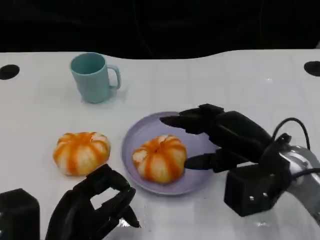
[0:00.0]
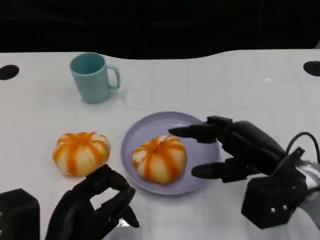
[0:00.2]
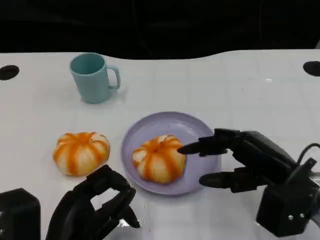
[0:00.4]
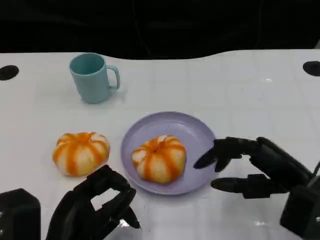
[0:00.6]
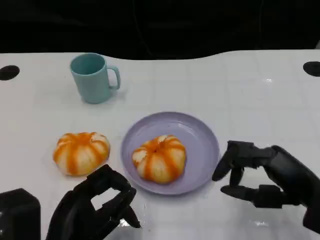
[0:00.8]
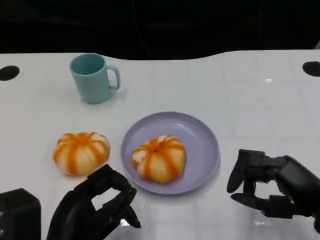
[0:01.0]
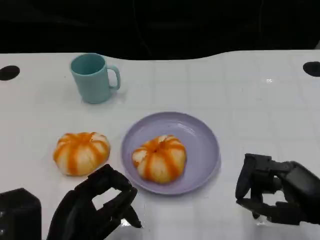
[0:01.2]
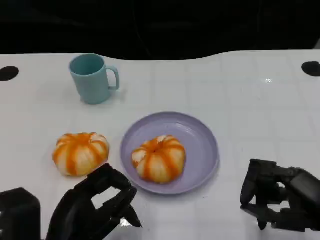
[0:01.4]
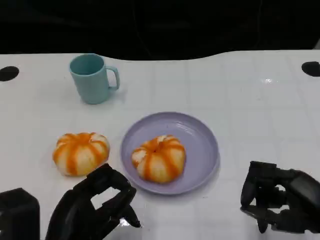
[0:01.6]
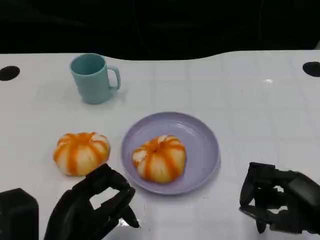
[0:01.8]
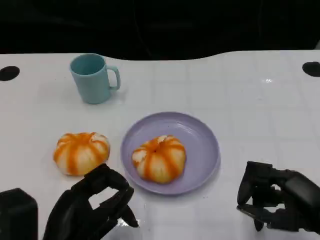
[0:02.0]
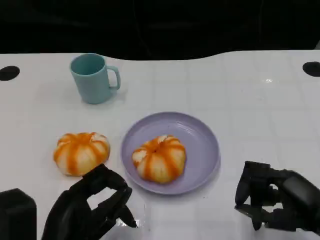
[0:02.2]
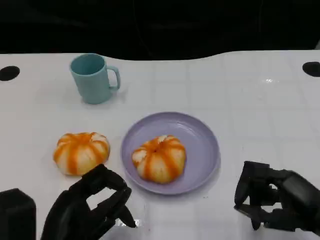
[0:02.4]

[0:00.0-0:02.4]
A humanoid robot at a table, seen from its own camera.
Task of the whole recording: Grasp the bread from the table and place it into the plate.
0:00.0 to 0:01.2: The right hand heads backward and to the right, covering approximately 10 cm.
0:01.2 to 0:02.4: The hands stay close to where they were, moving slightly.

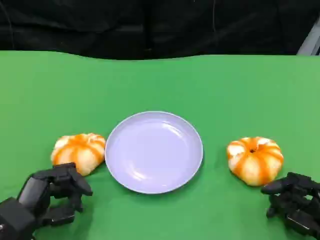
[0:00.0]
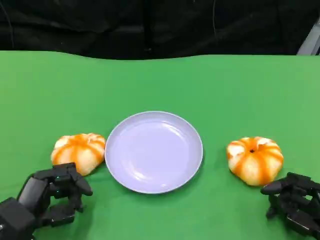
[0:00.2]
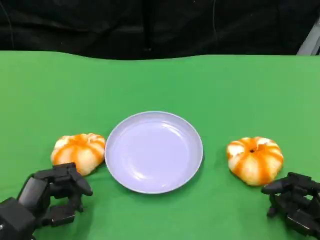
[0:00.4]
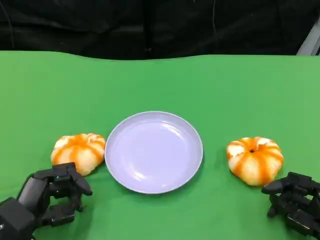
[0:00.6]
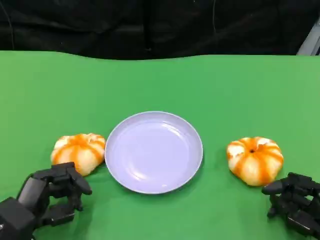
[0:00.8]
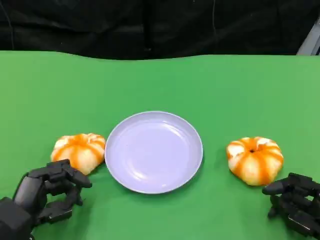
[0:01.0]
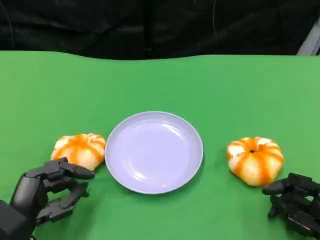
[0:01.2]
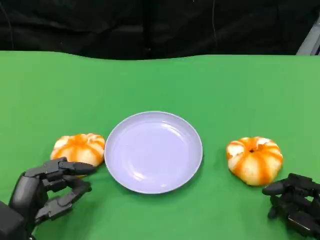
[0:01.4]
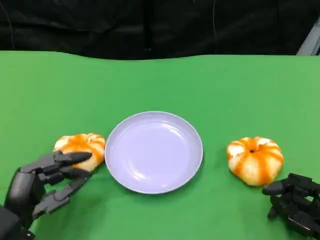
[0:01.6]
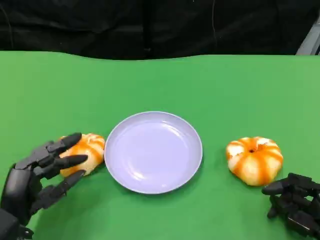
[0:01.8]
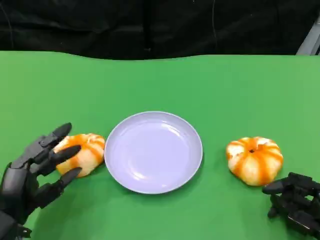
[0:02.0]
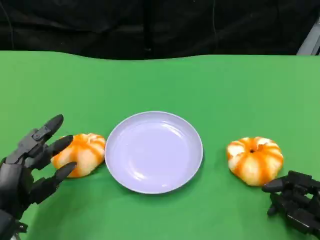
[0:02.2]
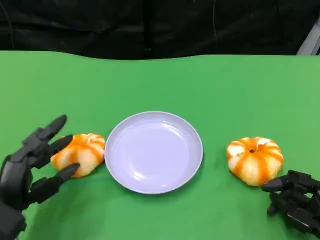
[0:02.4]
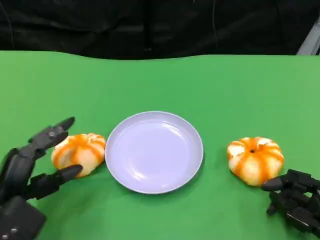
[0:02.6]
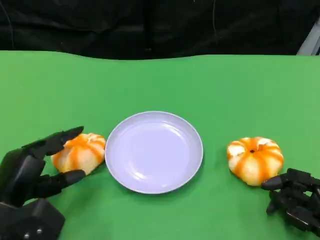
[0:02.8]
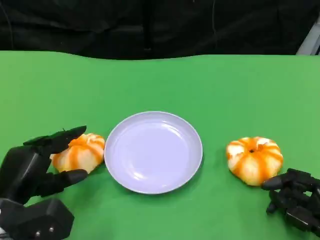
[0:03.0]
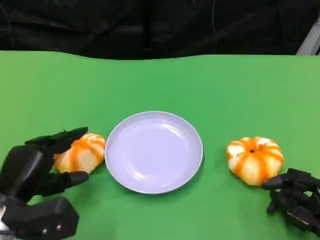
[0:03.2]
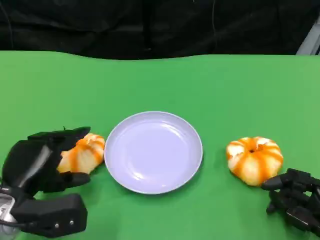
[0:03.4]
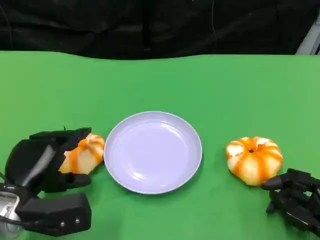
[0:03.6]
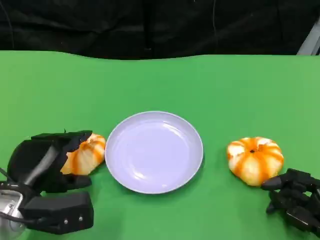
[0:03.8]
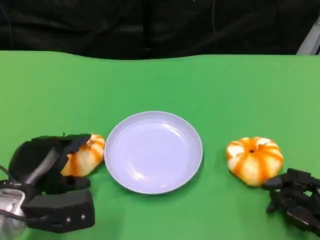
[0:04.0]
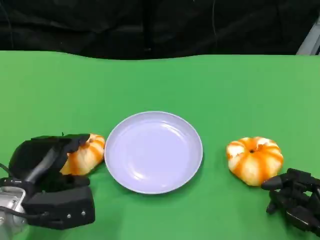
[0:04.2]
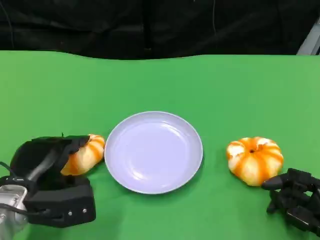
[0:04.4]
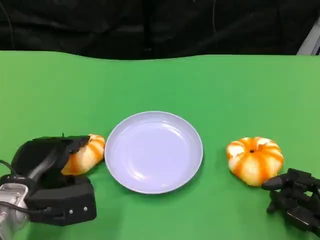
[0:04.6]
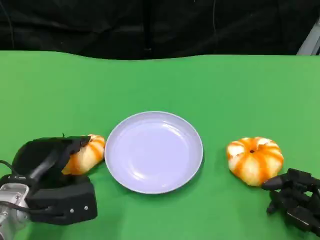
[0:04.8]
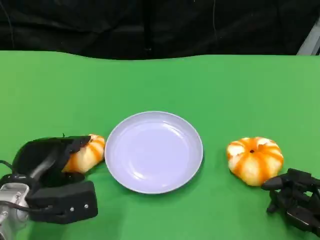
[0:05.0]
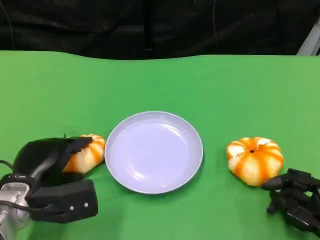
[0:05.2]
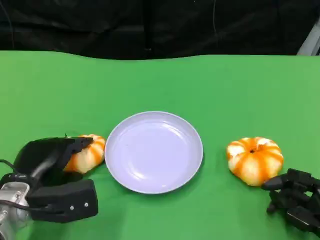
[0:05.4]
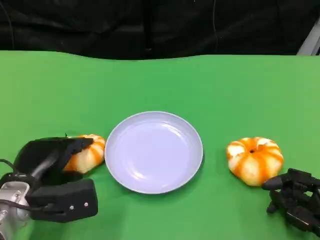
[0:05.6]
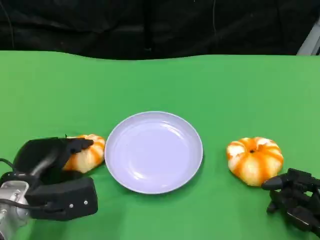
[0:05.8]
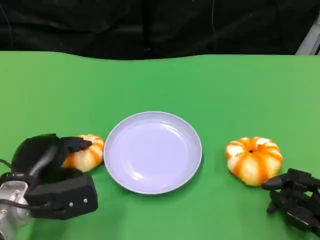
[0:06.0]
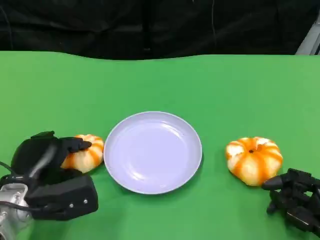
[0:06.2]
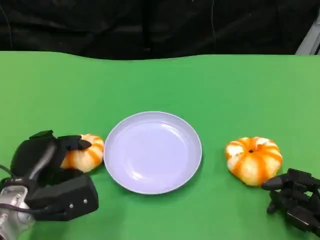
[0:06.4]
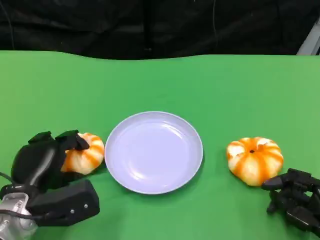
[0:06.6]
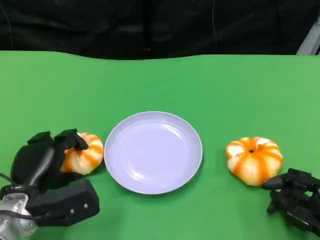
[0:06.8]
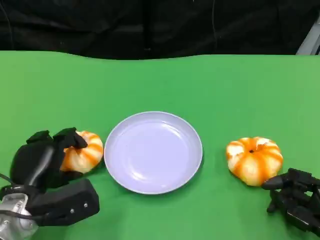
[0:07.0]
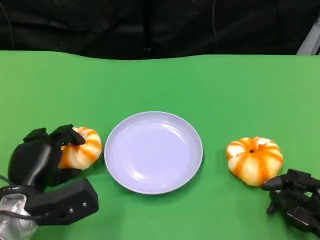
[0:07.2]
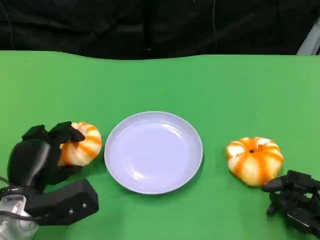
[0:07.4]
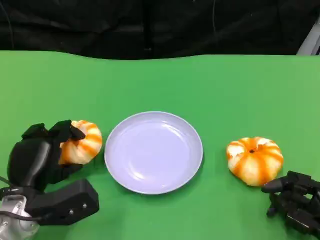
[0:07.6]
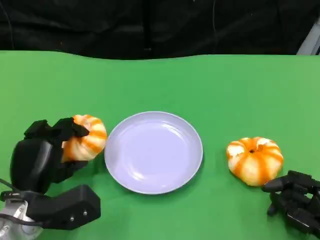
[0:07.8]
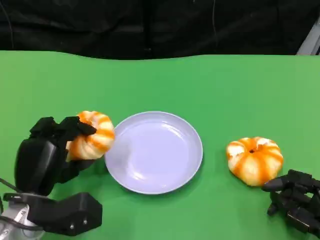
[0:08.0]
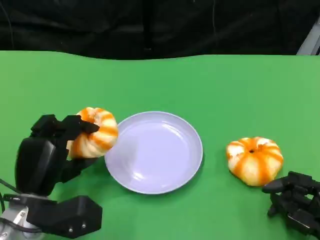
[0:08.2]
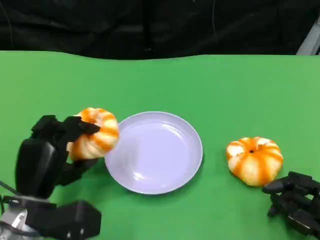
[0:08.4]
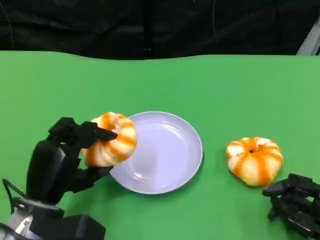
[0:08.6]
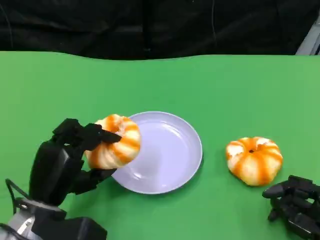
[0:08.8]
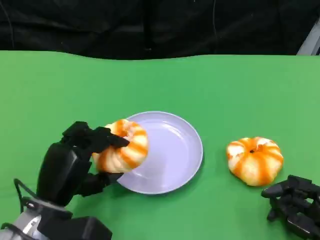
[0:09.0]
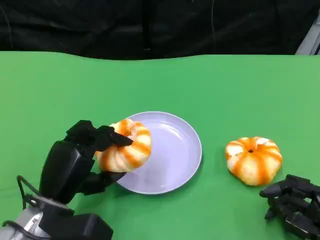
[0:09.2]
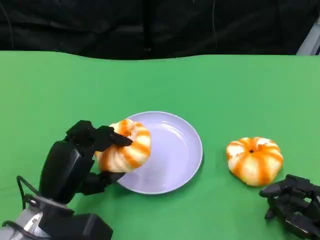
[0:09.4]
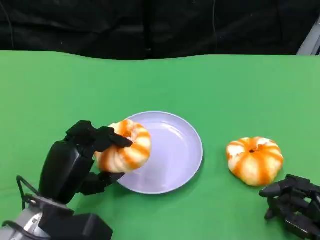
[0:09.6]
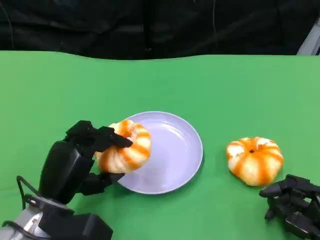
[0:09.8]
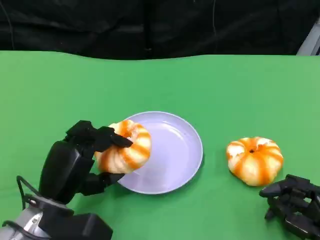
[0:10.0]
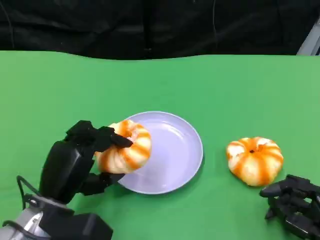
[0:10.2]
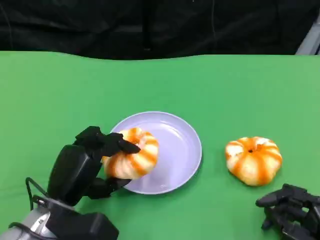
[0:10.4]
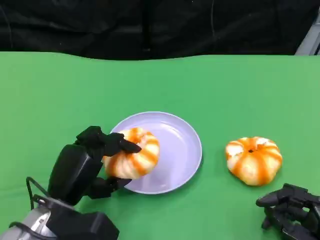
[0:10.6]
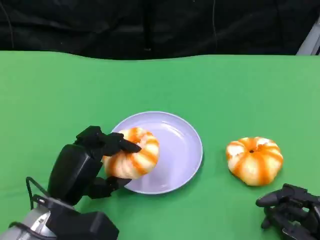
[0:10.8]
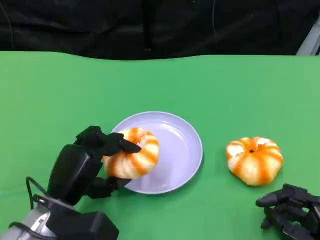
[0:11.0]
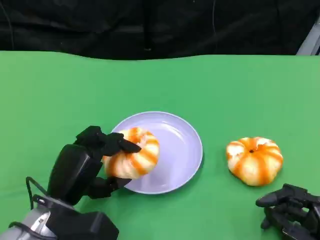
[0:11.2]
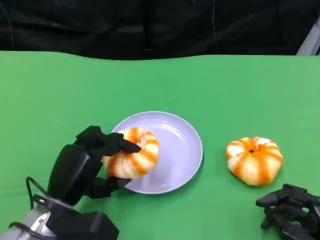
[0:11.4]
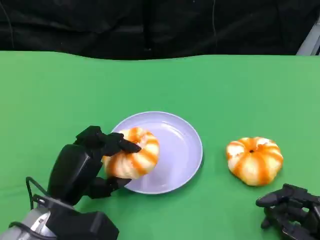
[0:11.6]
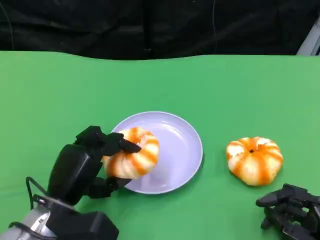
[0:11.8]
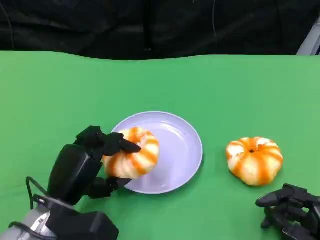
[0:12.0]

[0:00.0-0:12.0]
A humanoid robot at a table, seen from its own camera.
Task of the whole recording: Grasp the bread from the table and place it into the plate.
0:00.0 to 0:01.6: The hands make only small movements.
0:04.4 to 0:06.0: There are only small adjustments of the hands.
0:06.0 to 0:07.6: The hands stay close to where they were, moving slightly.
0:09.0 to 0:10.4: The hands stay close to where they were, moving slightly.
0:10.4 to 0:12.0: The two hands keep their place.

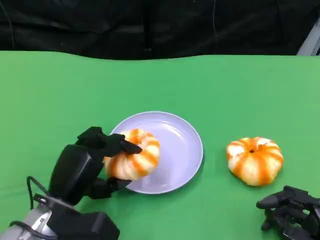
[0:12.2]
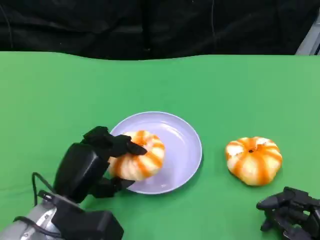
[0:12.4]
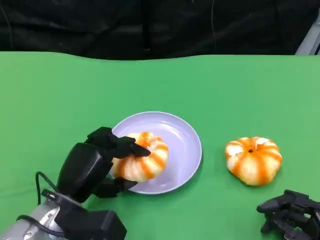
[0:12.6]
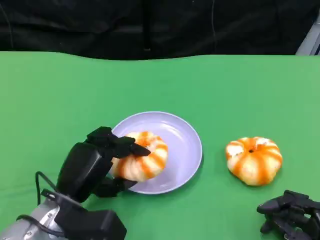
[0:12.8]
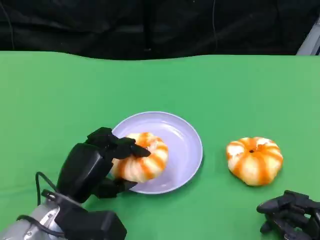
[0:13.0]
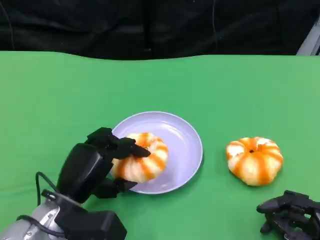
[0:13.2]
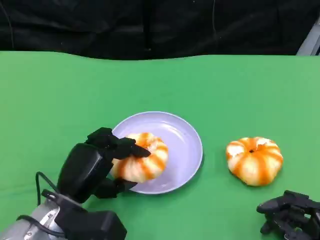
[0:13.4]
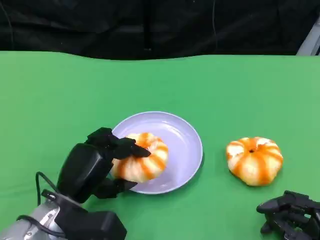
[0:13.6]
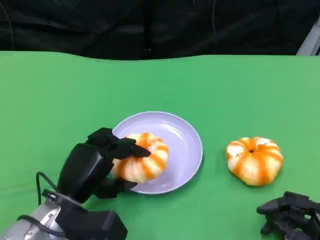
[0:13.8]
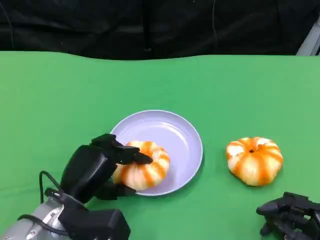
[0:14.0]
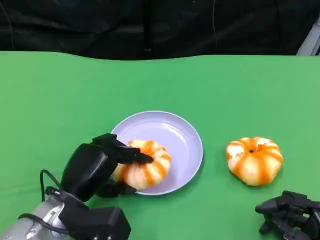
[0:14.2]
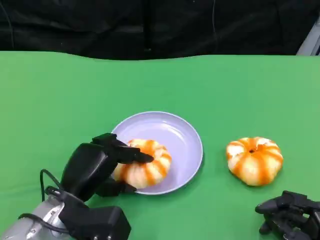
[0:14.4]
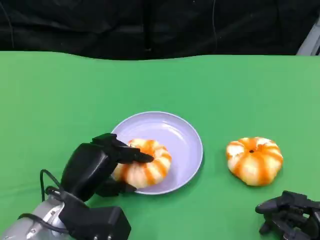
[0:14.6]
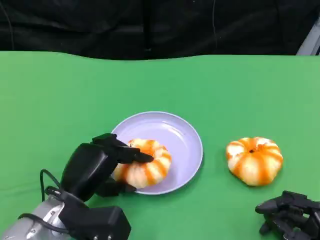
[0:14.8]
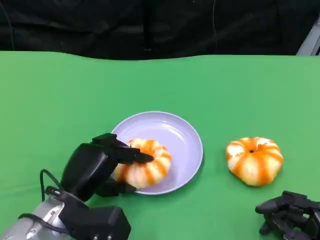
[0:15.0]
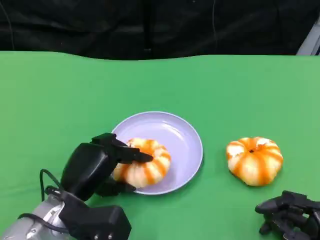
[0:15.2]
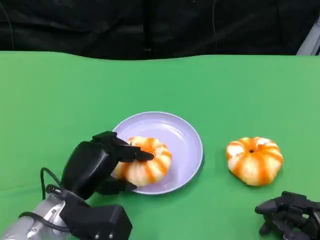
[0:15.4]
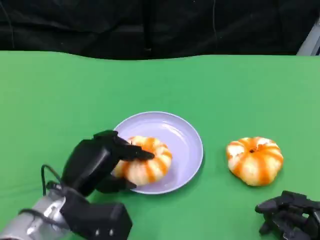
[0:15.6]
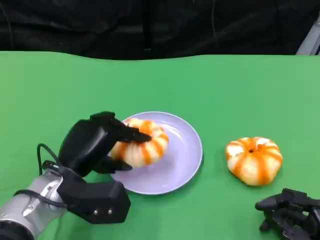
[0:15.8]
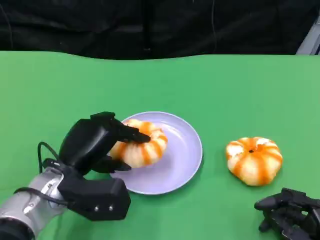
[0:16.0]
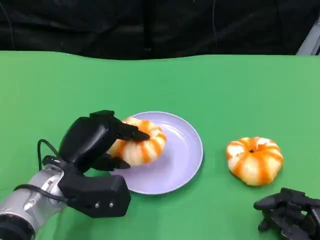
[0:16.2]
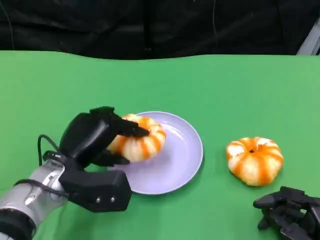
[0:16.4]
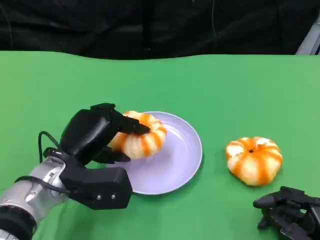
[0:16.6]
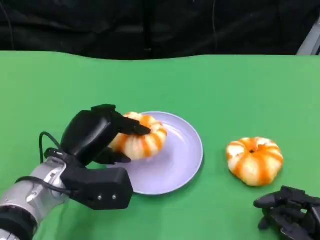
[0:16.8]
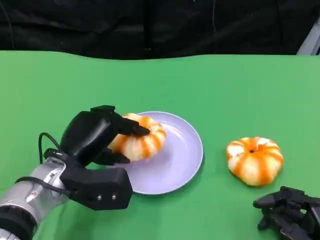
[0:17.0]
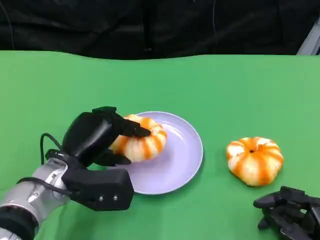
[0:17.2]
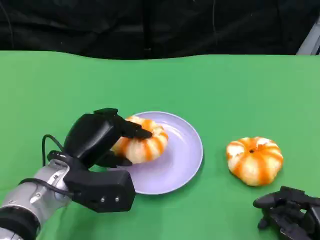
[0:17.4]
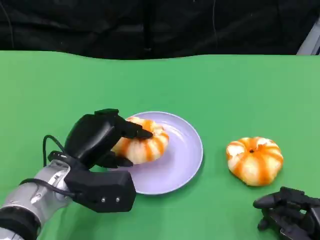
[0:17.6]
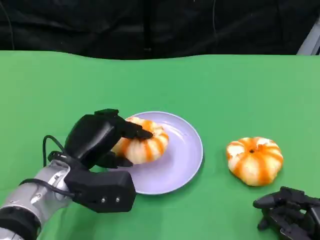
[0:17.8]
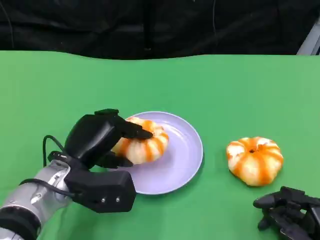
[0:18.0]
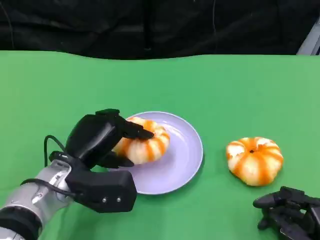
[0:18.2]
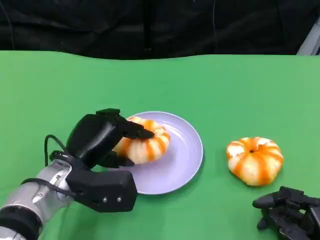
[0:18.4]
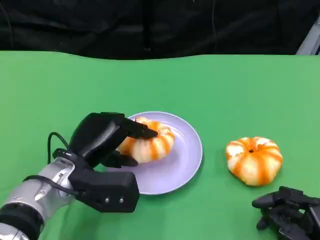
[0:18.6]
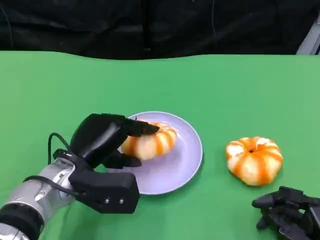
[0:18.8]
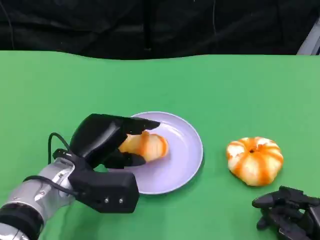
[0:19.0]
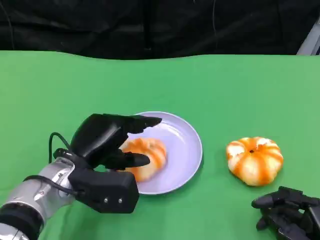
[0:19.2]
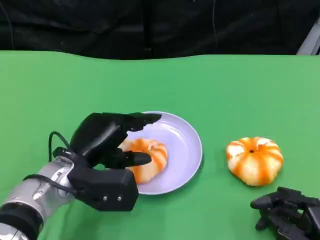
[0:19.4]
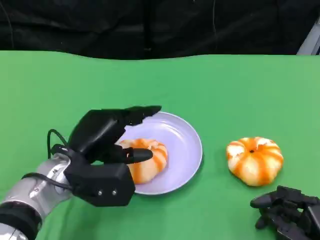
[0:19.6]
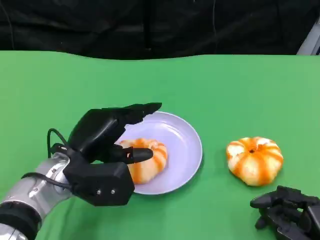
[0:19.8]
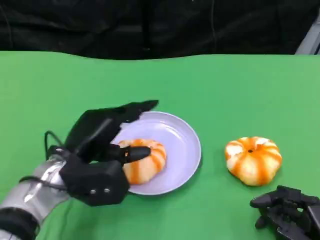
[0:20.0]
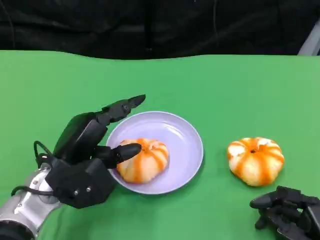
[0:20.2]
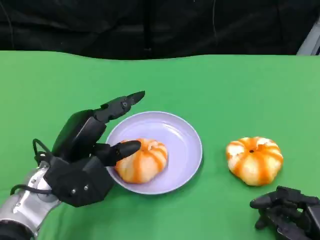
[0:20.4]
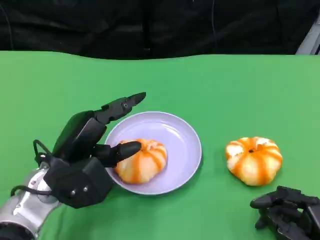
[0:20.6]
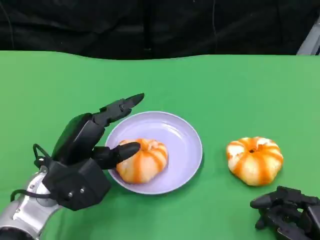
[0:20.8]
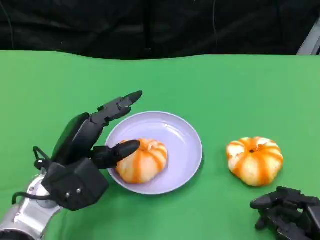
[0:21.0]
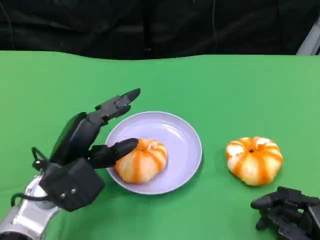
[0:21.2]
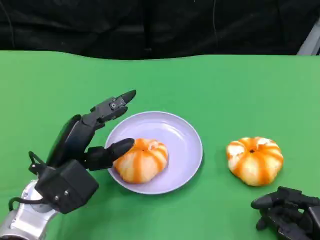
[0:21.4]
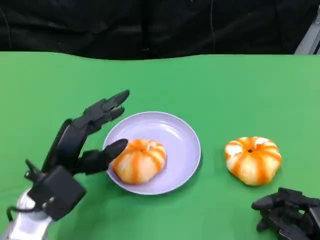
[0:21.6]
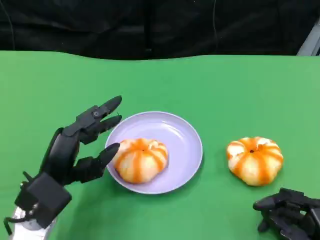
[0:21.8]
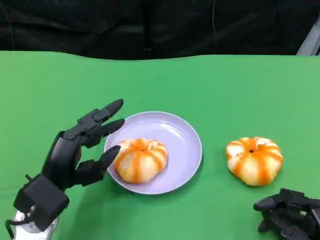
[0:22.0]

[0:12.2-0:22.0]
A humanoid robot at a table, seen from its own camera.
Task of the whole recording: Grasp the bread from the table and place it into the plate.
0:12.2 to 0:13.6: The two hands keep their place.
0:13.6 to 0:15.0: The hands make only small movements.
0:15.0 to 0:16.4: The left hand shifts by roughly 5 cm.
0:16.4 to 0:17.8: Both hands stay put.
0:17.8 to 0:19.2: Both hands stay put.
